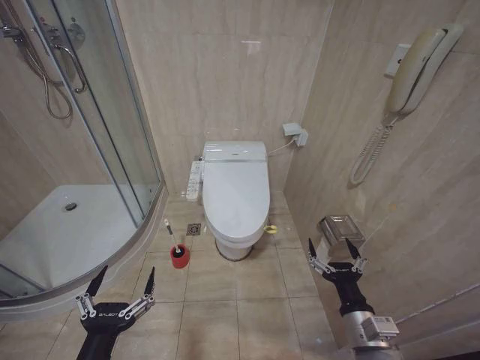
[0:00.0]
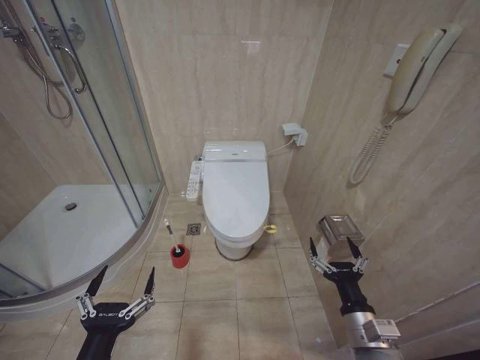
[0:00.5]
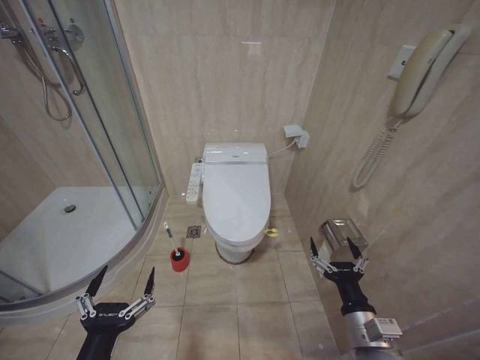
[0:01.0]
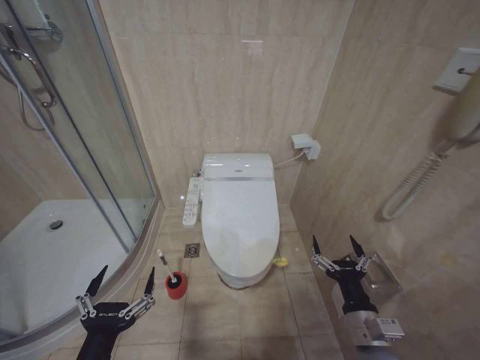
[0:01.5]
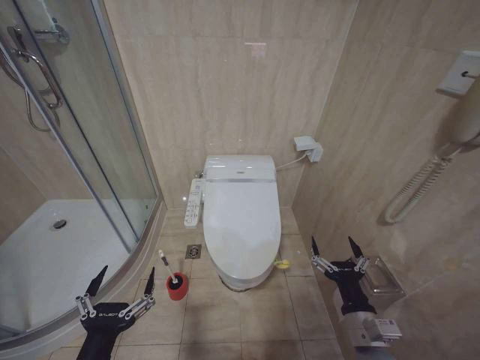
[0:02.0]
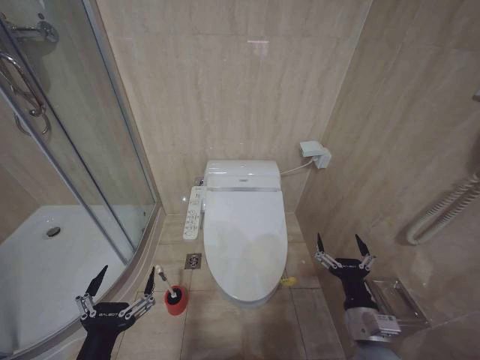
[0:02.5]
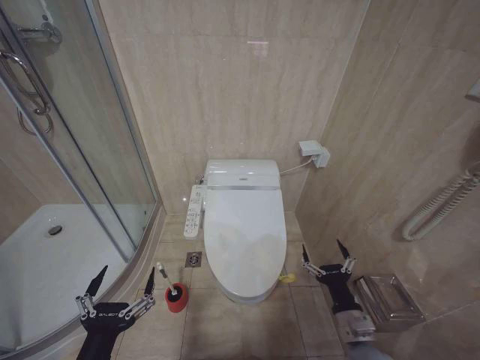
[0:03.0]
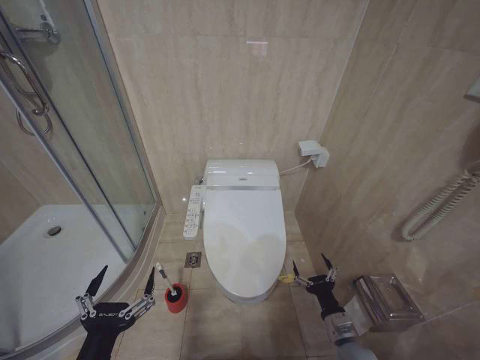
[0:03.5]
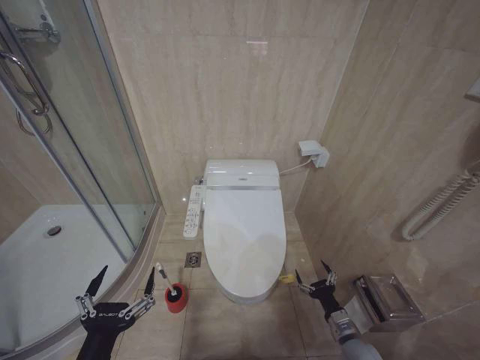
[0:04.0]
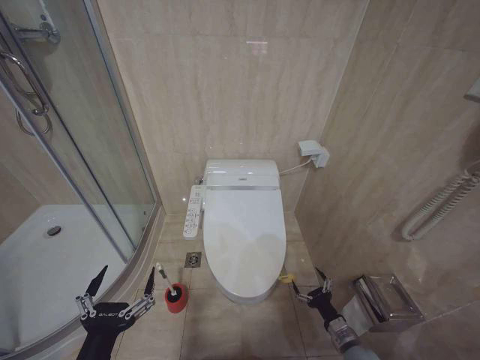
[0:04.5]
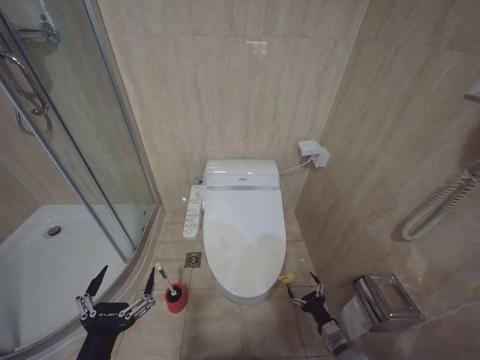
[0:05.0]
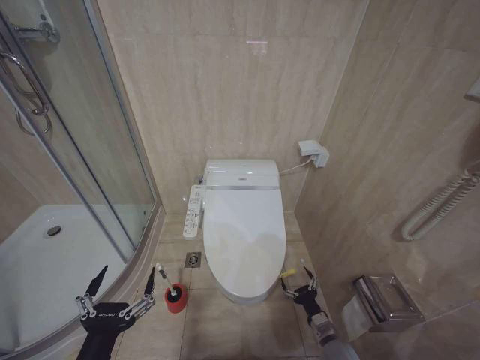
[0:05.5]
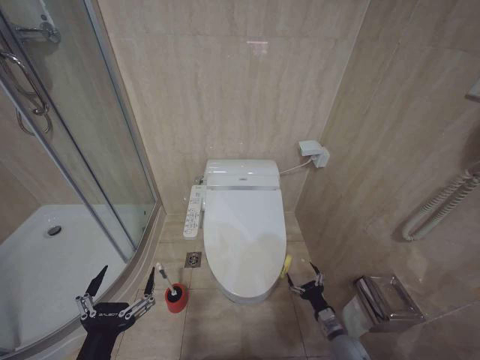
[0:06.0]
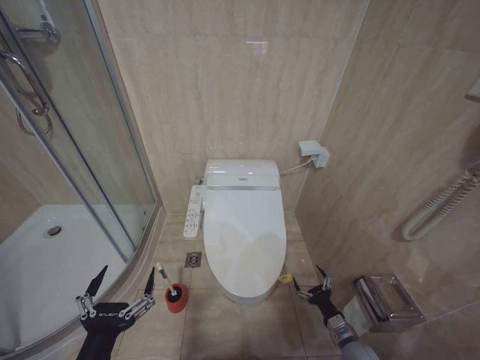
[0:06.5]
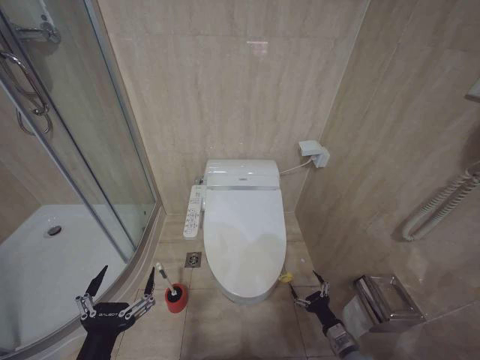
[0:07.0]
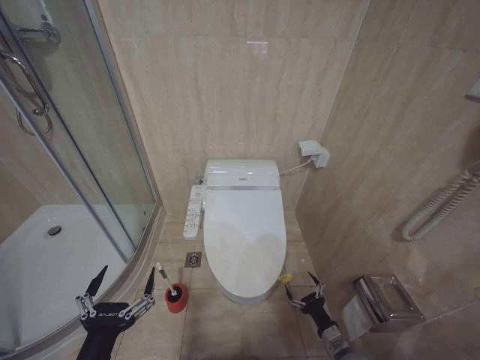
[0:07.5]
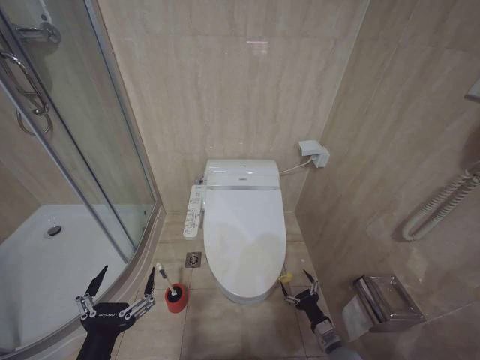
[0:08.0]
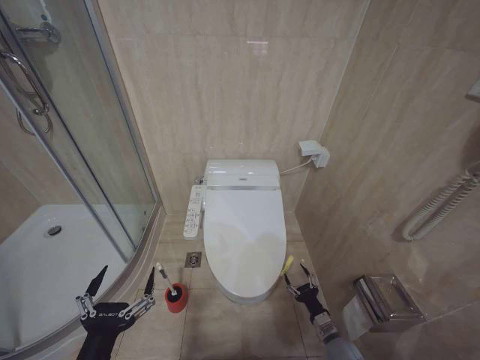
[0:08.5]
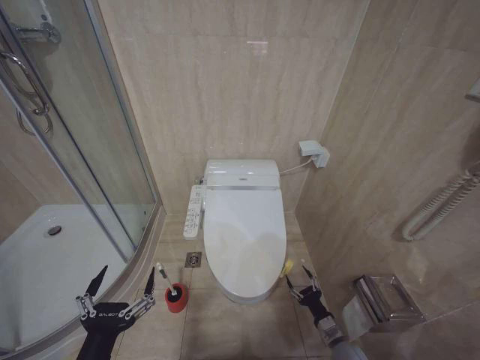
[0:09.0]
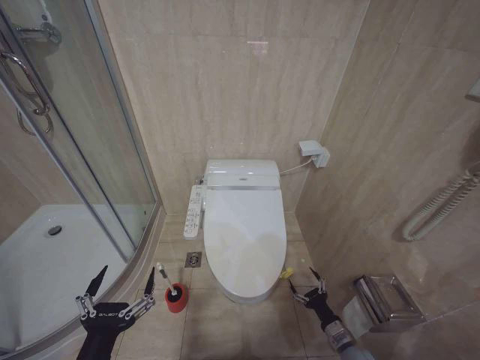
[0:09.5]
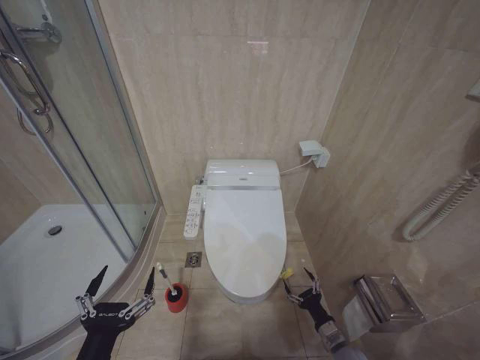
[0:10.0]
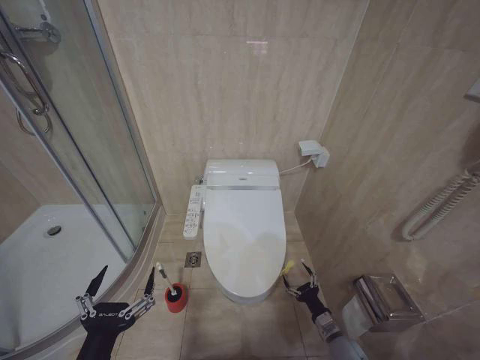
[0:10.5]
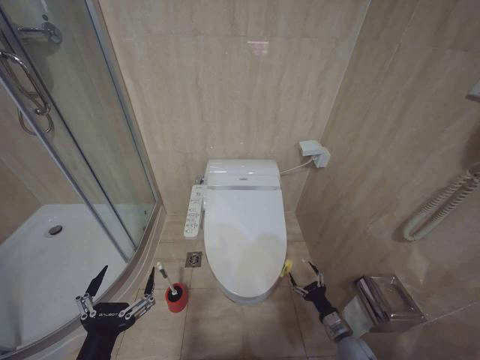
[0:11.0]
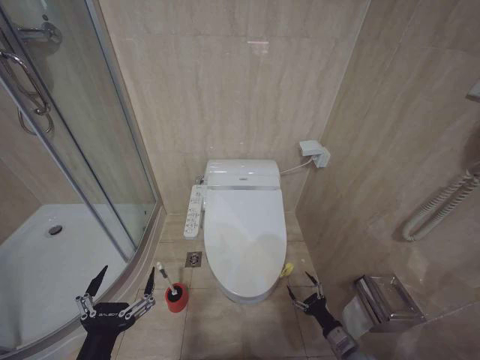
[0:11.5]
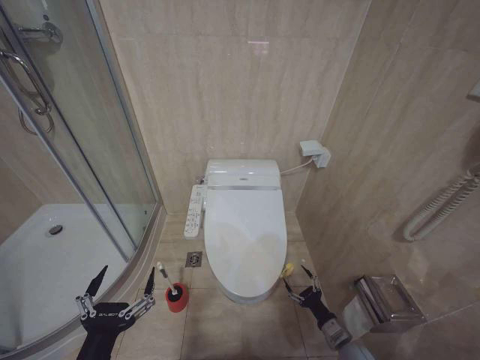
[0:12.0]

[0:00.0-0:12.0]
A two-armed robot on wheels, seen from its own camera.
Task of the whole recording: Open the toilet lid, clean the toilet bowl with a toilet brush, close the toilet lid, and flush.
0:02.0 to 0:04.0: The right gripper heads downward, covering approximately 15 cm.
0:04.0 to 0:06.0: The right gripper shifts by approximately 5 cm.

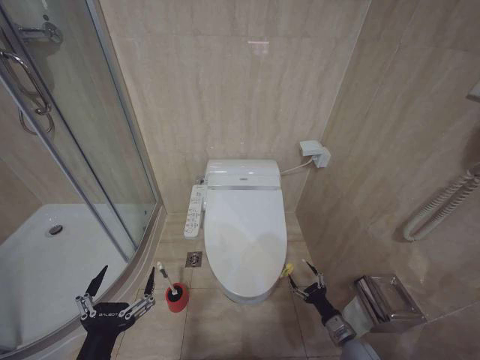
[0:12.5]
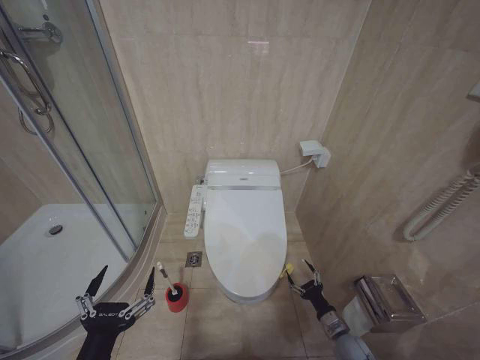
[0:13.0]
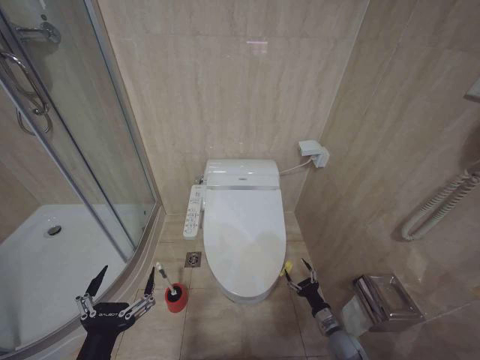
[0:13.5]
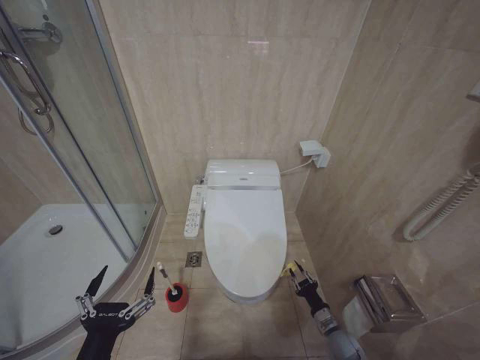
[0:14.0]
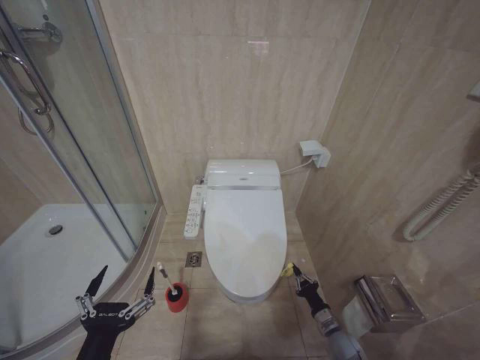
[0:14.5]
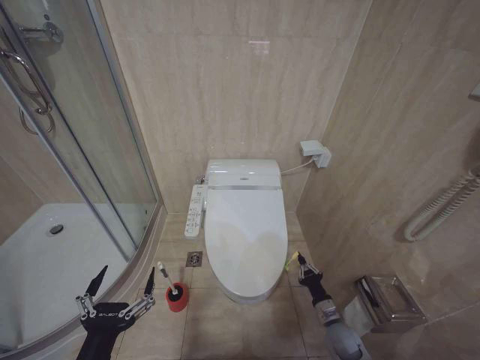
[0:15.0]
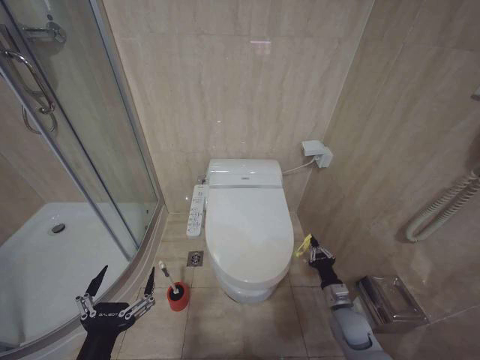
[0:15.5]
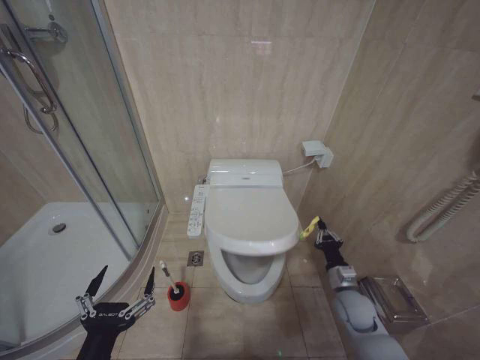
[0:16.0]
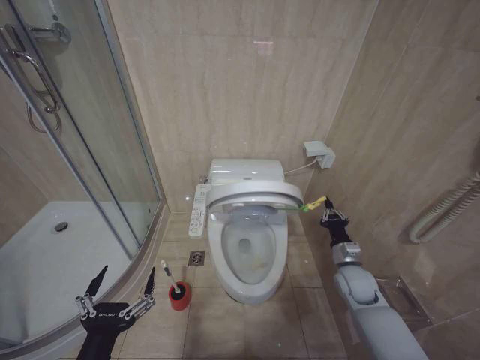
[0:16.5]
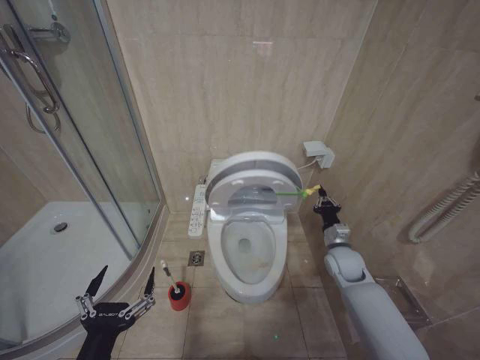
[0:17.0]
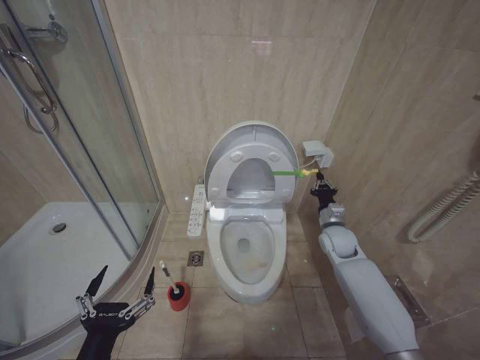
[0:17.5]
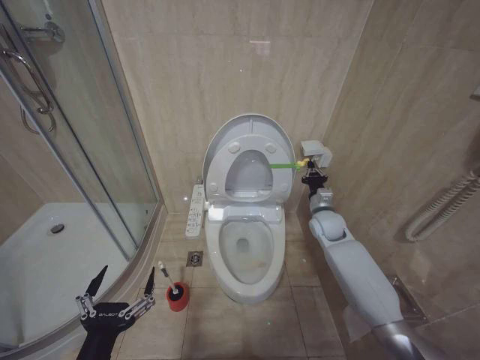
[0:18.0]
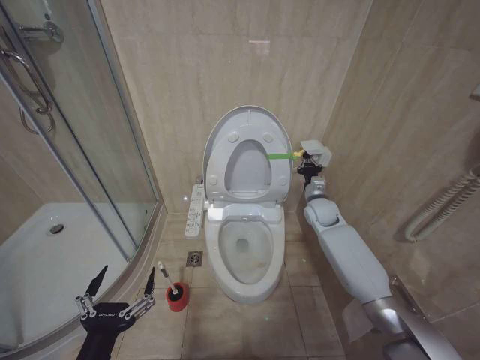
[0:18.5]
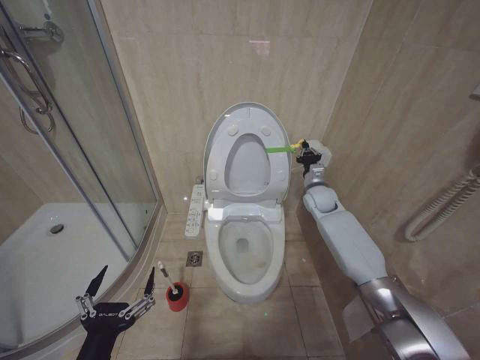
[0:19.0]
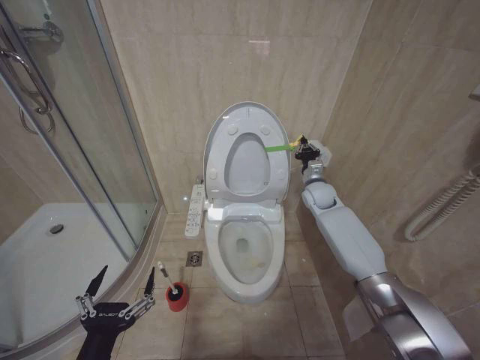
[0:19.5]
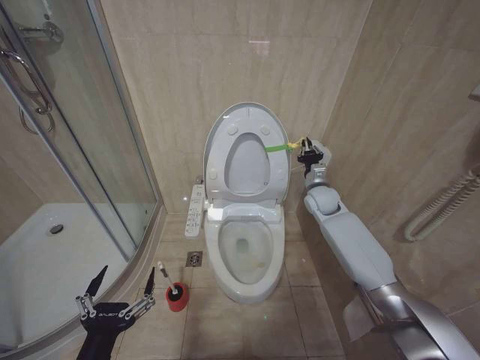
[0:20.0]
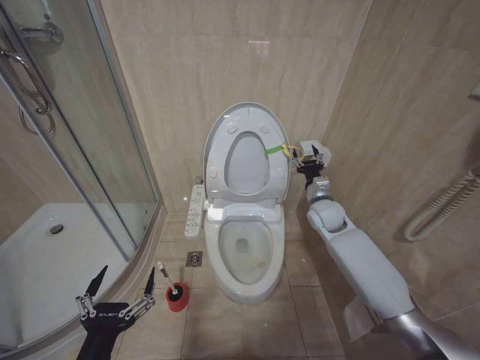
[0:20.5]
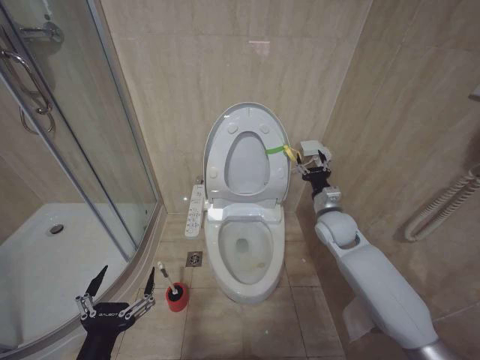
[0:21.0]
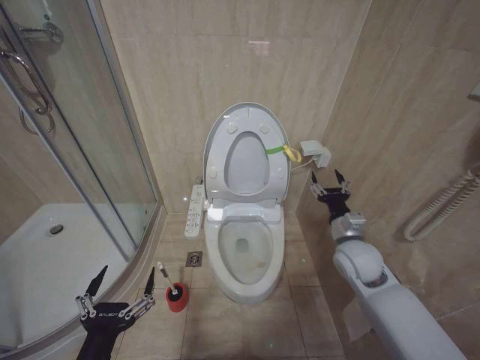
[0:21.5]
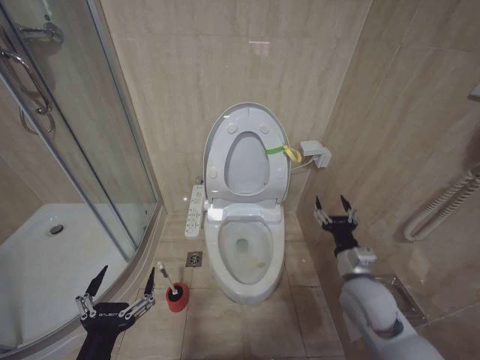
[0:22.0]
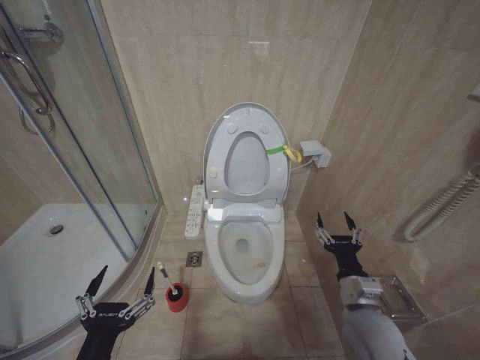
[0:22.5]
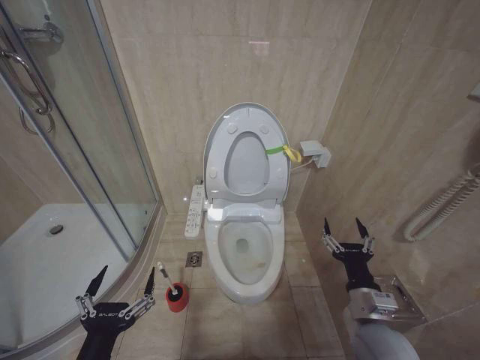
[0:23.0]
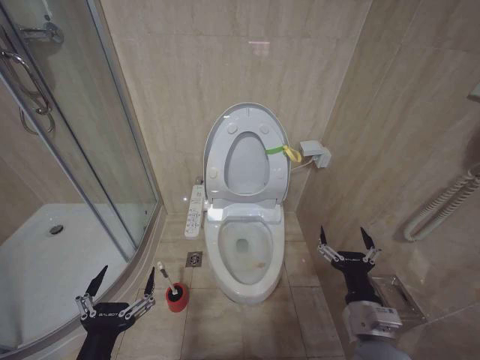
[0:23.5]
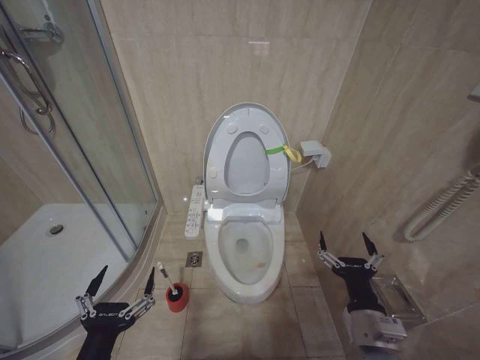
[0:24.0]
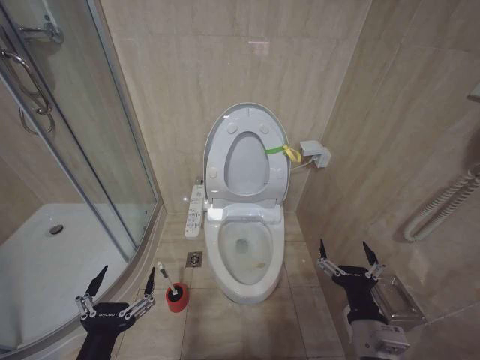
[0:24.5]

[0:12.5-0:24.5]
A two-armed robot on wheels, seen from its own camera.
Task of the whole recording: Open the toilet lid, clean the toilet bowl with a toilet brush, close the toilet lid, and flush.
0:12.5 to 0:14.5: The right gripper closes.
0:14.5 to 0:16.5: The right gripper goes roughly 20 cm upward and forward.
0:16.5 to 0:18.5: The right gripper travels forward and upward by about 20 cm.
0:18.5 to 0:20.5: The right gripper opens its fingers.
0:20.5 to 0:22.5: The right gripper travels backward by approximately 25 cm.
0:22.5 to 0:24.5: The right gripper travels backward by approximately 10 cm.

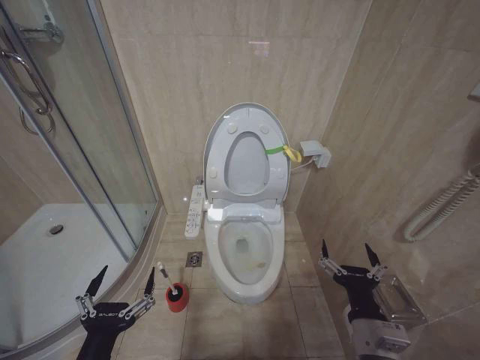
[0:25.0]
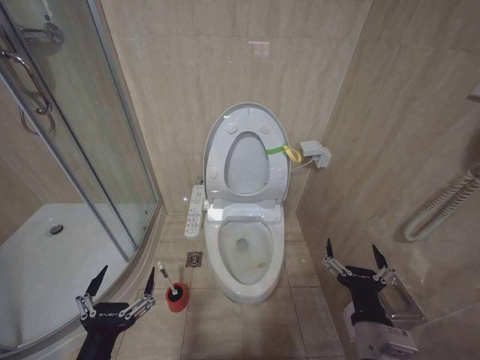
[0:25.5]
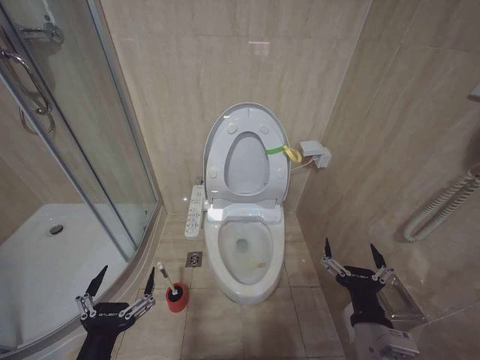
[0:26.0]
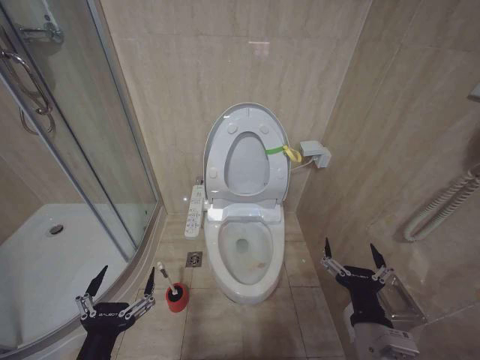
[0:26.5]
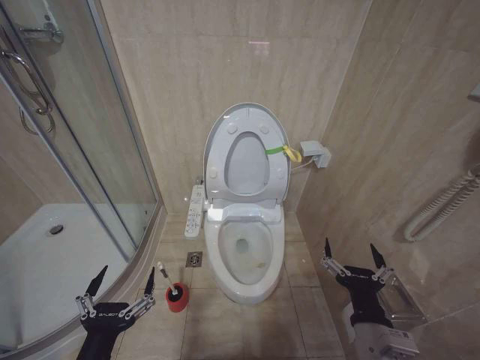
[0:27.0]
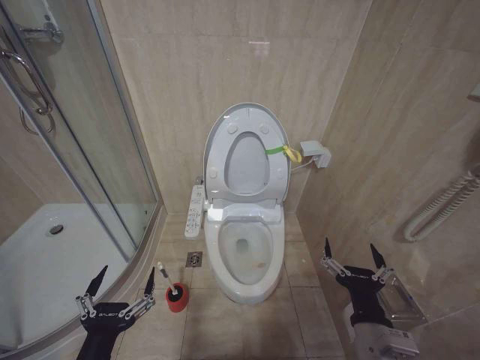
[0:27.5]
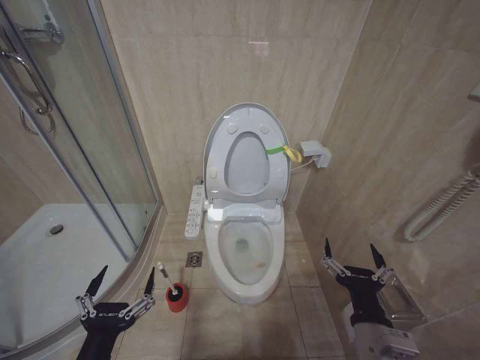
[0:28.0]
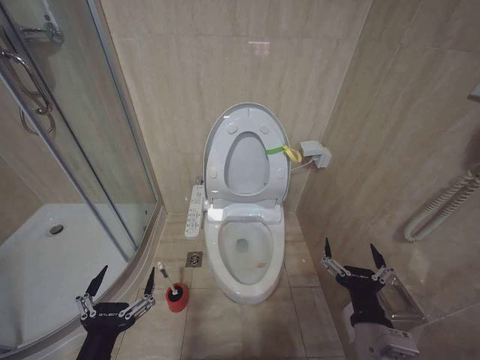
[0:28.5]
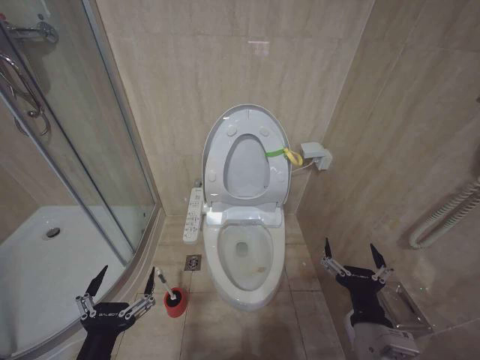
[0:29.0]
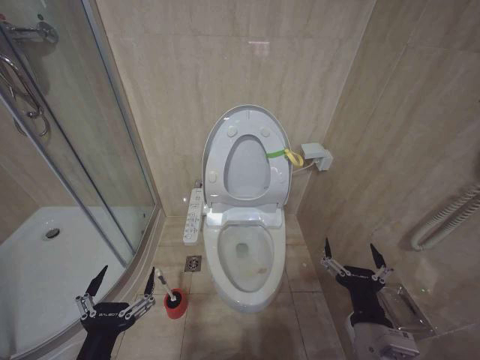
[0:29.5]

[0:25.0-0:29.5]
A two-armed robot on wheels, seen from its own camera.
Task of the whole recording: Open the toilet lid, clean the toilet bowl with a toilet brush, close the toilet lid, and flush.
0:27.0 to 0:29.5: Neither gripper changes place.
